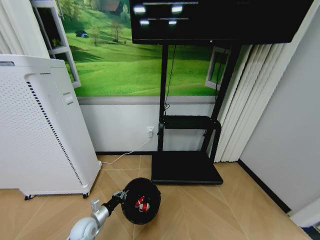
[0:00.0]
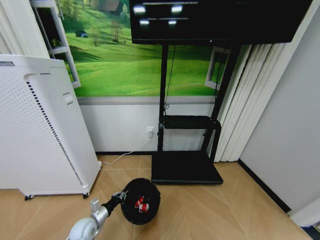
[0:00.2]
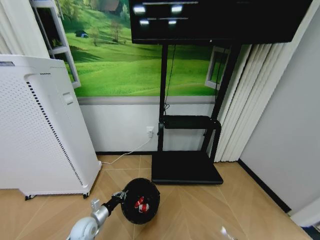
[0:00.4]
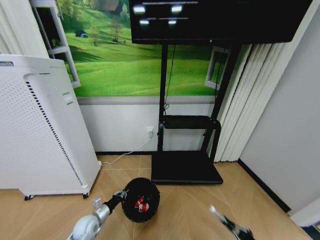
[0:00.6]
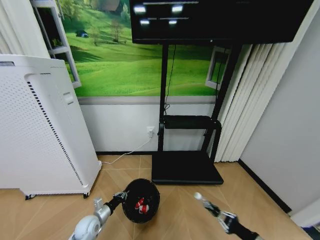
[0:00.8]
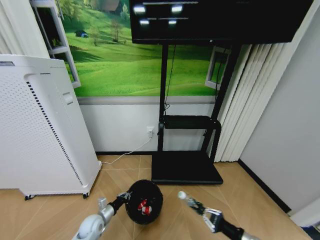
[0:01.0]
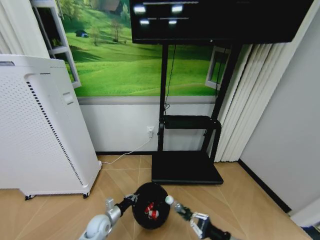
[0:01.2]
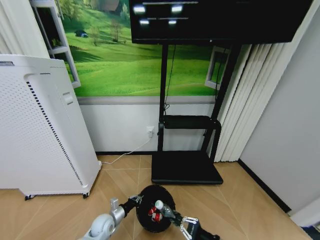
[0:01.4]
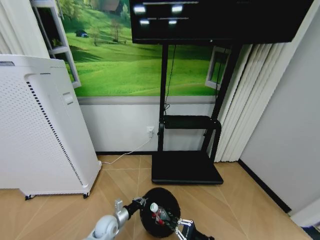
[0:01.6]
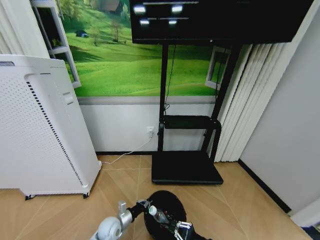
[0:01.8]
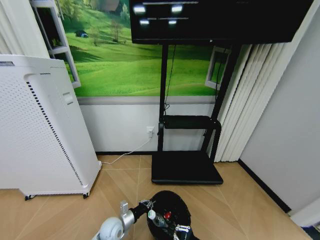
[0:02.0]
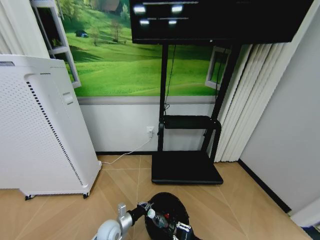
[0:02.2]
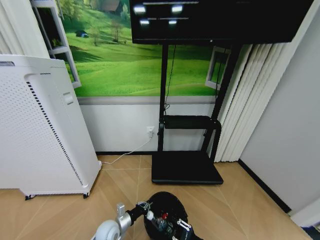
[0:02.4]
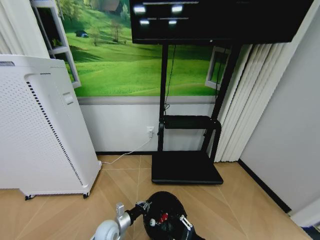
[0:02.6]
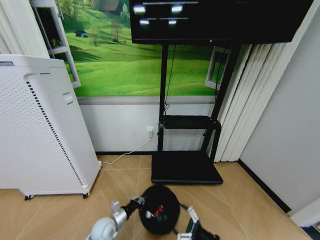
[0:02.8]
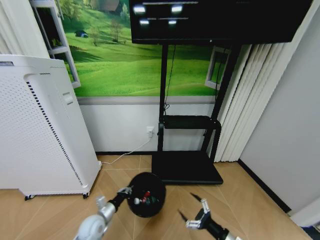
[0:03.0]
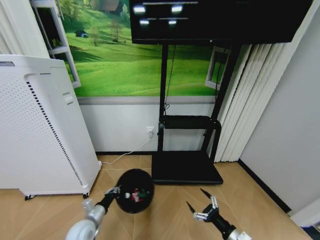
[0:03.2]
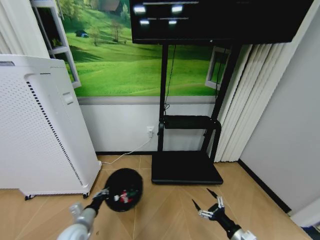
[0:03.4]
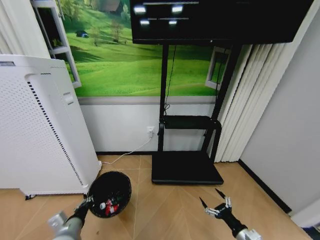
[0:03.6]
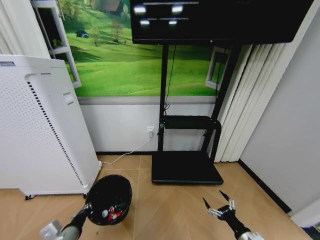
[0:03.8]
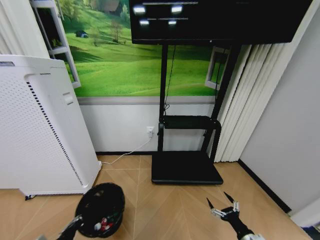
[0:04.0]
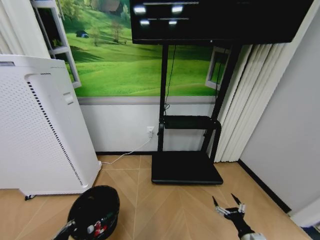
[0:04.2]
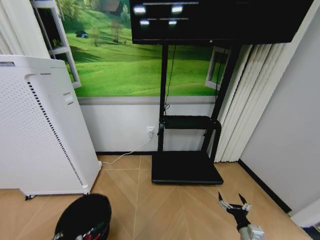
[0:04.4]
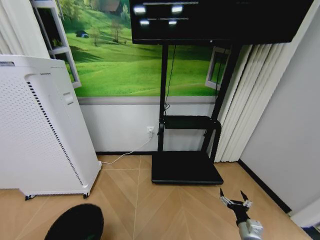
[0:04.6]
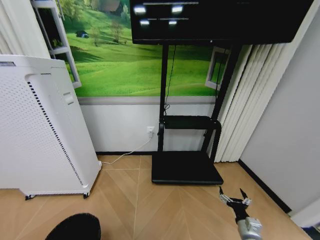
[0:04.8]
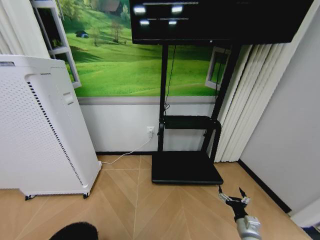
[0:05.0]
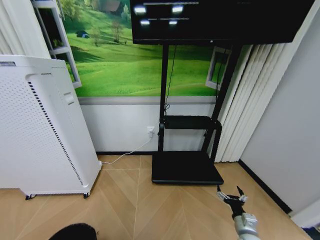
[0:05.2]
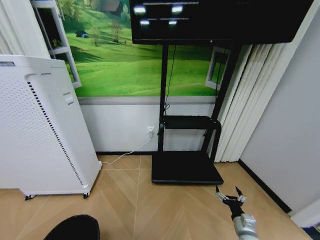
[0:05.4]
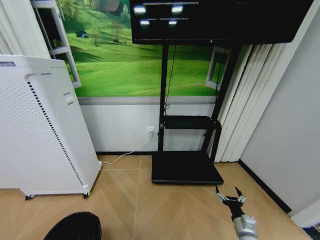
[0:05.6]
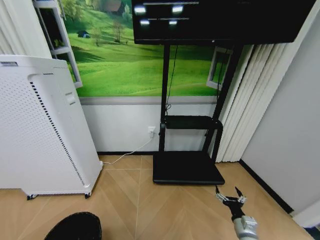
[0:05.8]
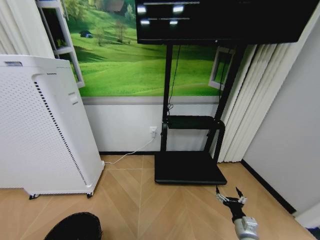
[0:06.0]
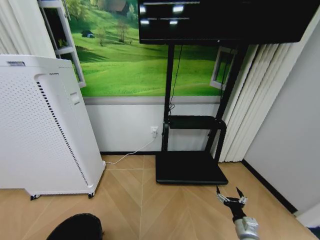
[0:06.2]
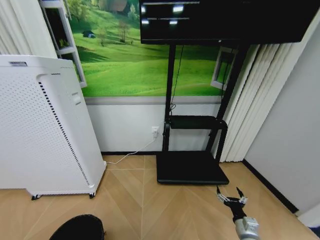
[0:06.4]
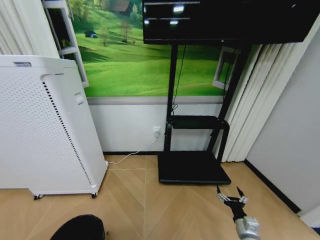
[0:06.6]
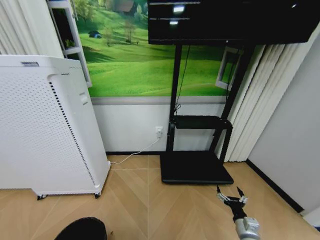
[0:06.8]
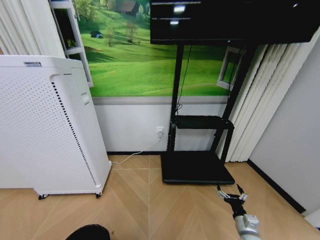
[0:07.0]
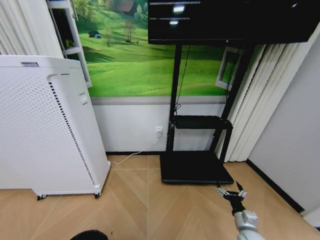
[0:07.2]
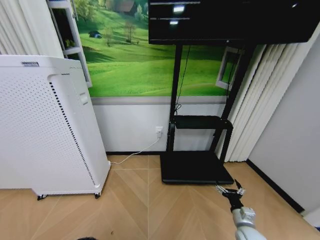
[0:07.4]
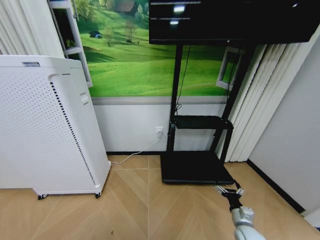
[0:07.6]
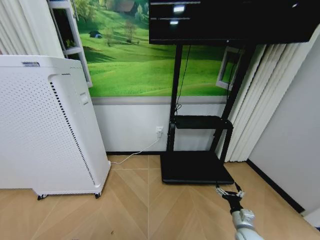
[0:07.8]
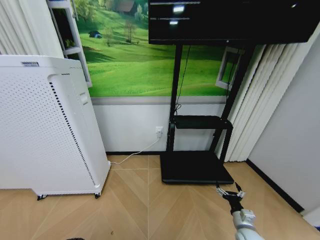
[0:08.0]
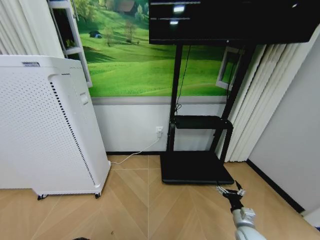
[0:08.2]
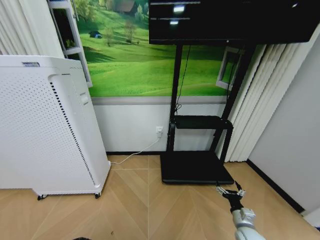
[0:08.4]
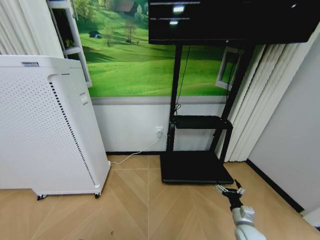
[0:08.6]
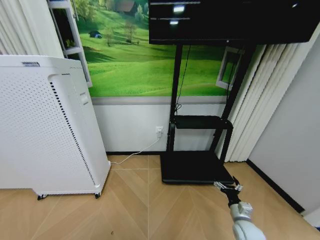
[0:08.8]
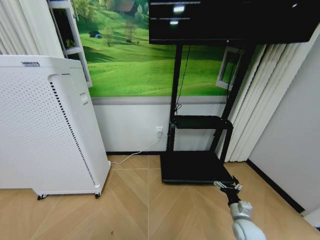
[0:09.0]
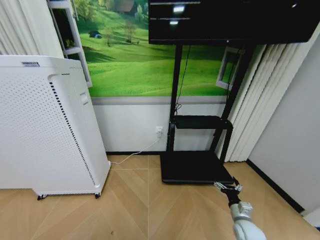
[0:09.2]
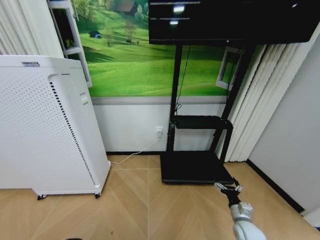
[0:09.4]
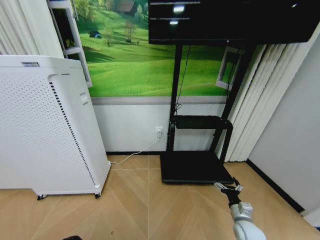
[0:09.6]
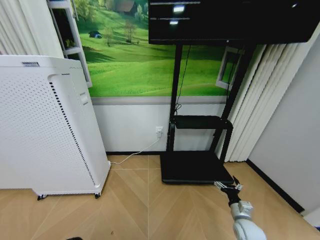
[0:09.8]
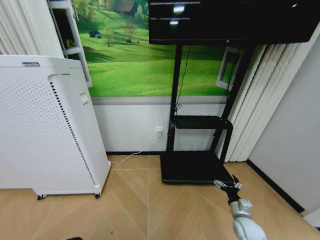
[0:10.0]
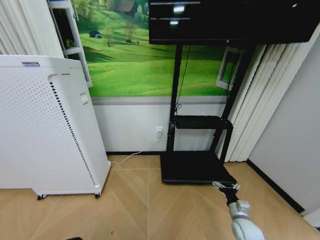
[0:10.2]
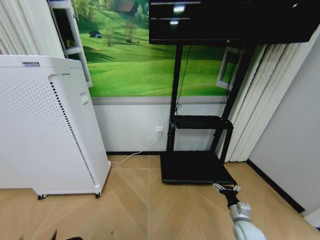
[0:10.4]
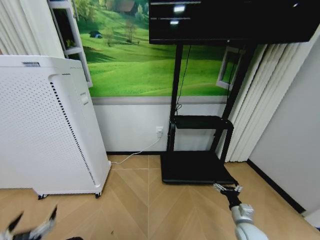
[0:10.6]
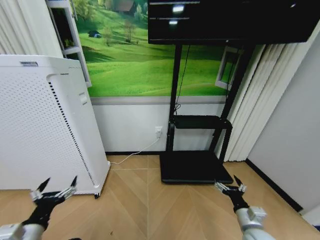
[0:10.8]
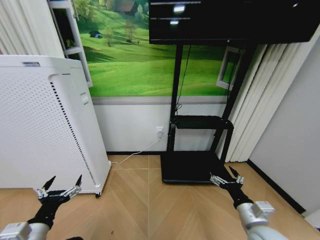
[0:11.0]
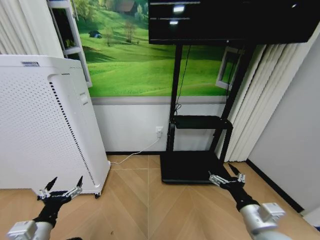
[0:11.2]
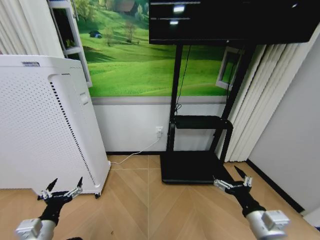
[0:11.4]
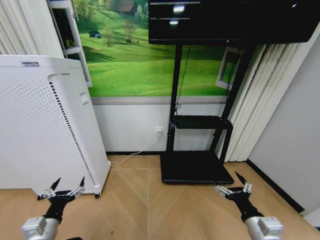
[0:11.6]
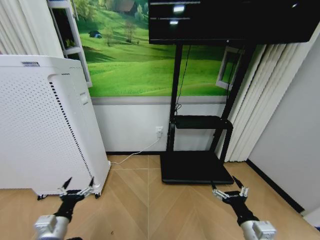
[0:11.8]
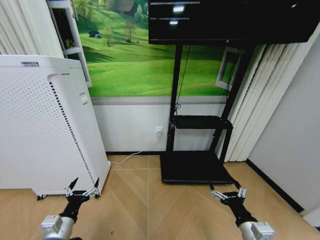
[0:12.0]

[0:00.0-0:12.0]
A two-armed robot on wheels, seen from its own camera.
Task of the whole recording: Pick up the trash bin and place the garbage on the floor into it.
0:00.0 to 0:01.6: The left gripper moves to the right, approximately 10 cm; the right gripper goes about 35 cm to the left, upward and forward.
0:01.6 to 0:03.0: The right gripper opens up; the left gripper heads upward, covering some 5 cm.
0:03.0 to 0:04.4: The right gripper goes some 10 cm downward and to the right. The left gripper travels backward and upward by roughly 25 cm.
0:04.4 to 0:06.0: The left gripper moves backward, some 10 cm.
0:06.0 to 0:07.6: The left gripper moves backward, about 5 cm.
0:07.6 to 0:09.0: The grippers move only a little.
0:10.4 to 0:12.0: The right gripper moves upward, backward and to the left, about 20 cm; the left gripper moves forward, approximately 20 cm.

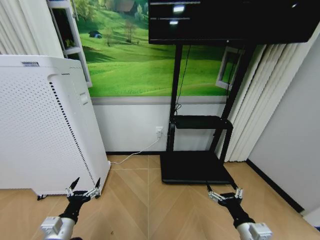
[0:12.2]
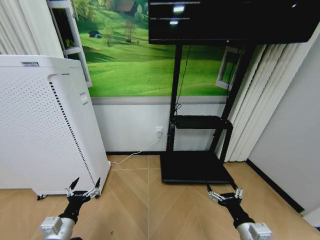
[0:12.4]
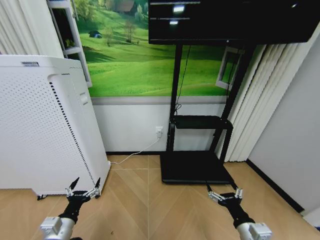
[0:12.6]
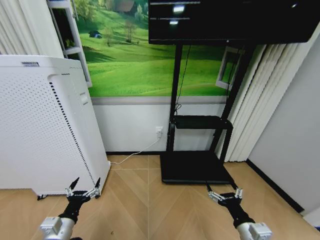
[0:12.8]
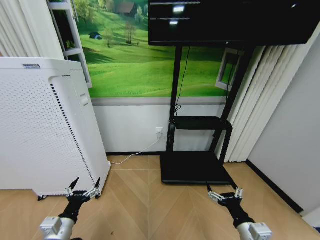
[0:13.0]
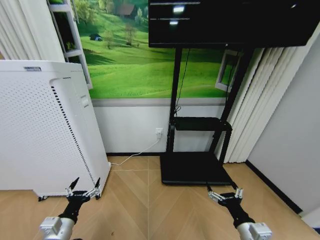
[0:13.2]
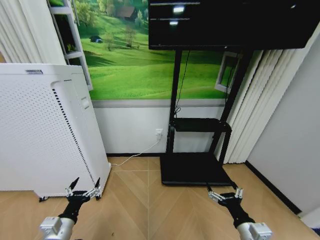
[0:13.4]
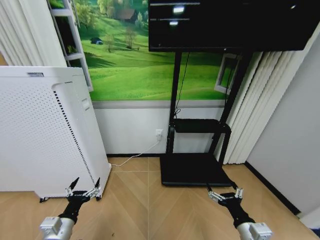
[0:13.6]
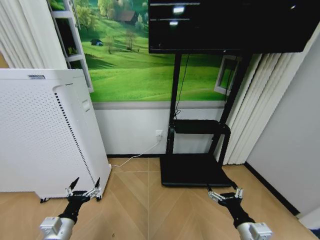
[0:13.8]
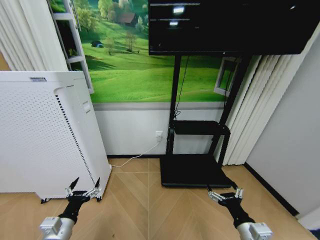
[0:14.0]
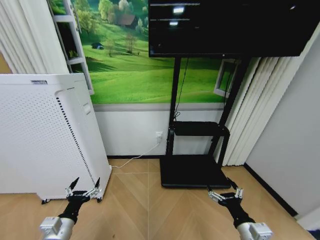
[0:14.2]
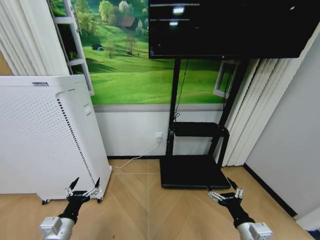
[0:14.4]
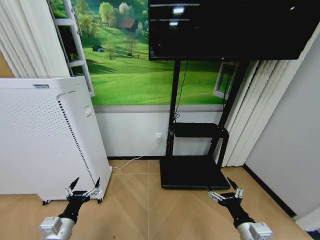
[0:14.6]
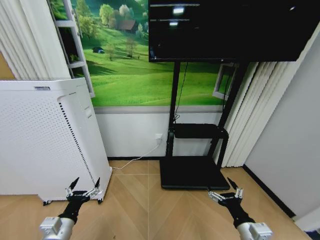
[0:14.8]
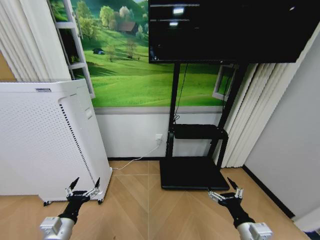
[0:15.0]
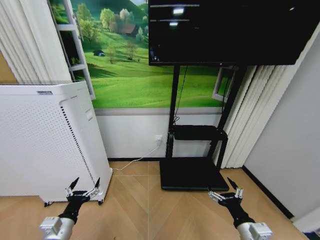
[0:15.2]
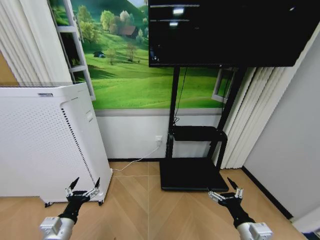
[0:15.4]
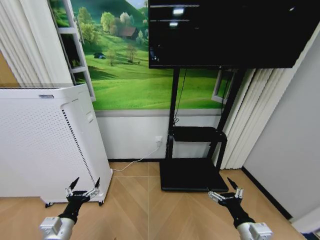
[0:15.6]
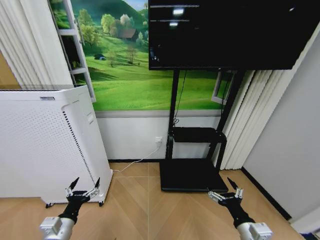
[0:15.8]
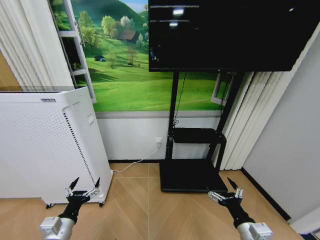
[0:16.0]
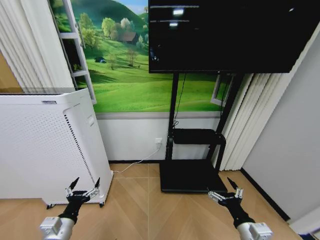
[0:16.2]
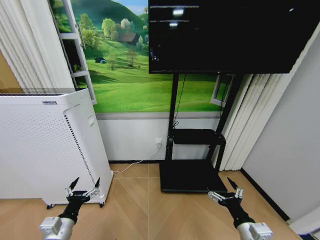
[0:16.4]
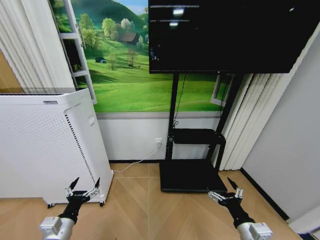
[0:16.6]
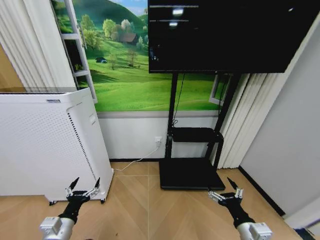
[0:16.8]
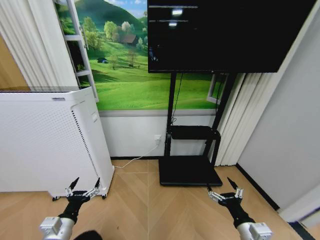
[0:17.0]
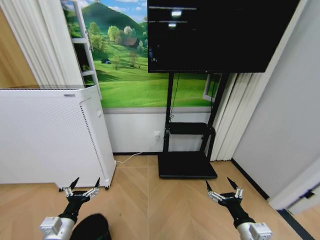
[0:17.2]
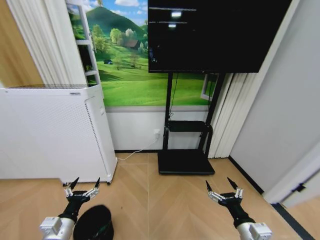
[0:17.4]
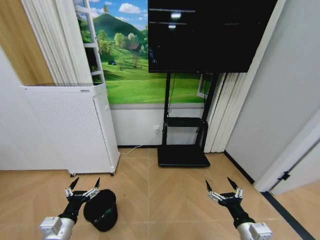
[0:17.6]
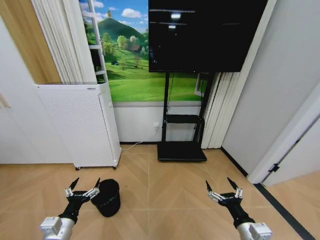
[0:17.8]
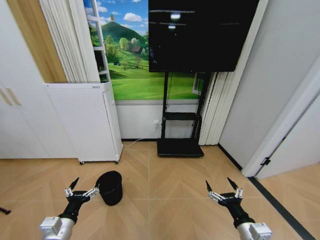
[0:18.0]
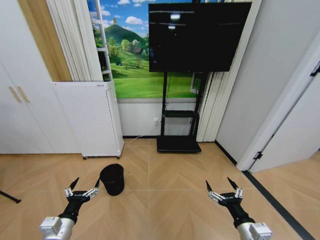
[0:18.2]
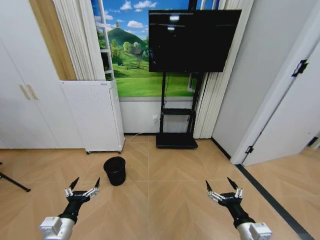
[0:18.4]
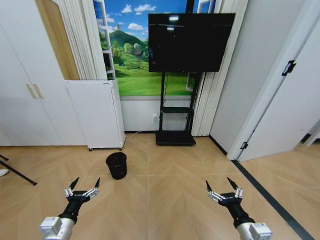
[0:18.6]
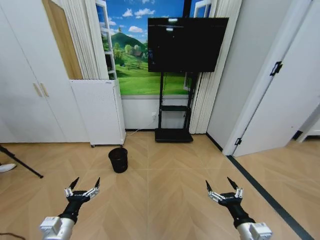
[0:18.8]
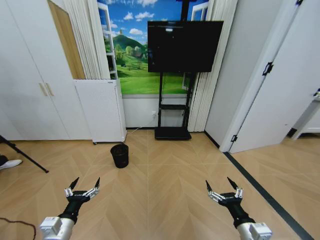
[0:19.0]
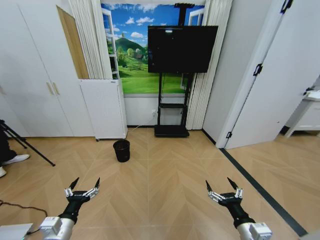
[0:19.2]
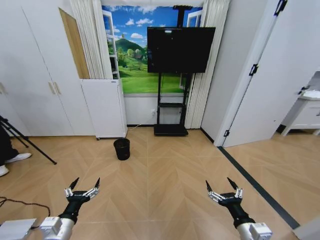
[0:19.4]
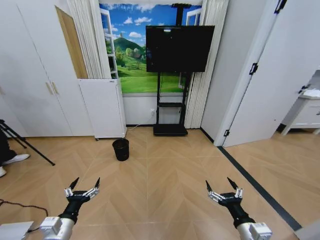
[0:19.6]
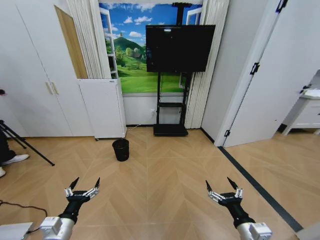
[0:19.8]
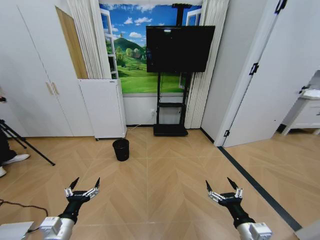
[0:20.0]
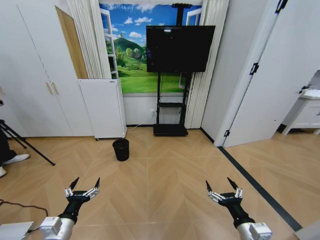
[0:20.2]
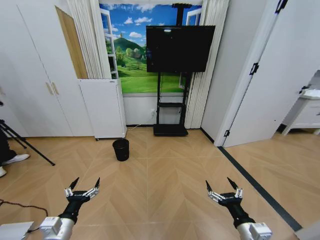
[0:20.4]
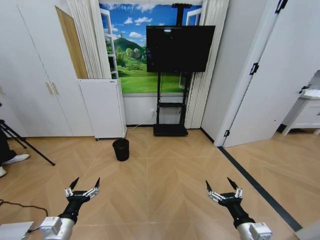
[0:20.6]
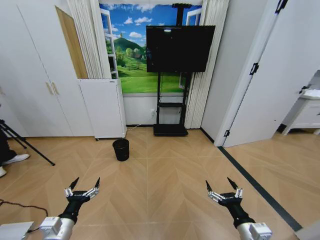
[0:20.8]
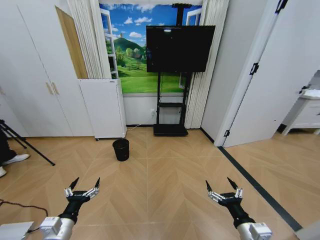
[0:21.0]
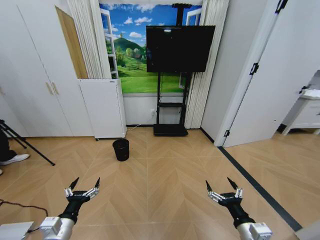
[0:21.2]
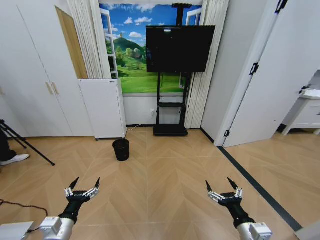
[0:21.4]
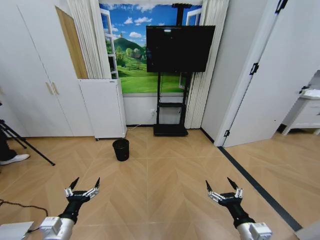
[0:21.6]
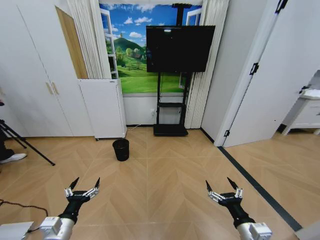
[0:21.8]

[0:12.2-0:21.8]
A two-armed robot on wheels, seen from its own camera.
Task of the whole recording: Pick up the trash bin and place the garbage on the floor into it.
0:12.2 to 0:15.4: The two grippers keep their place.
0:20.2 to 0:21.8: The two grippers keep their place.
